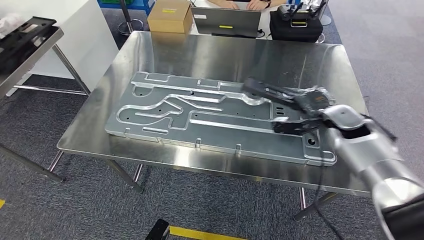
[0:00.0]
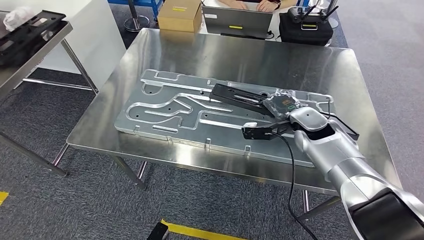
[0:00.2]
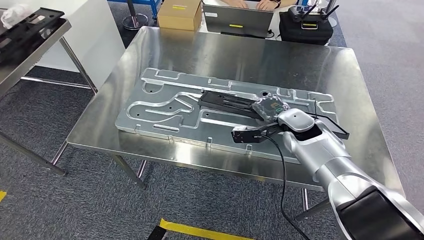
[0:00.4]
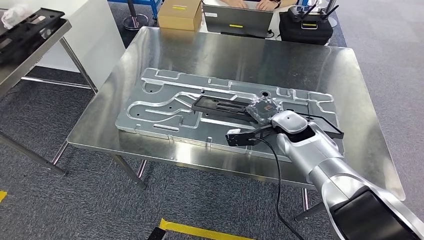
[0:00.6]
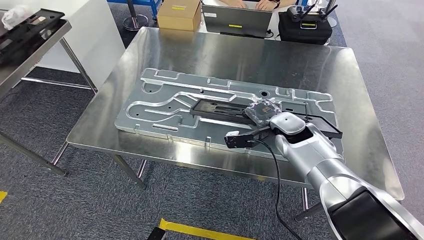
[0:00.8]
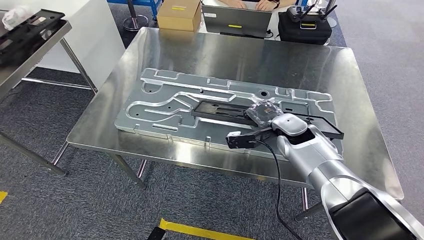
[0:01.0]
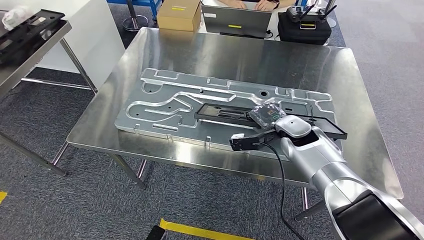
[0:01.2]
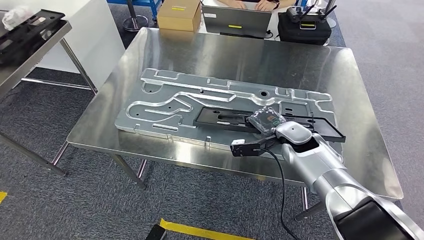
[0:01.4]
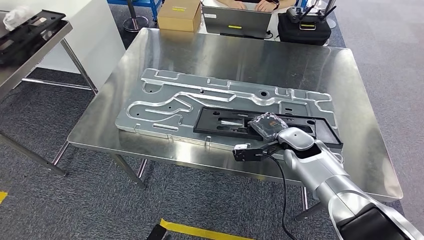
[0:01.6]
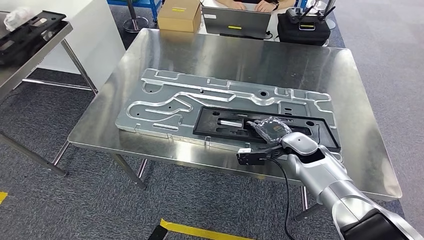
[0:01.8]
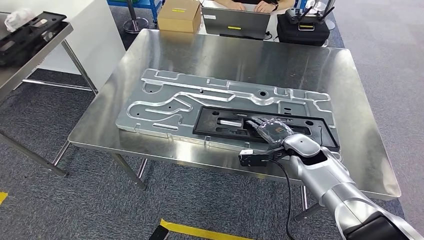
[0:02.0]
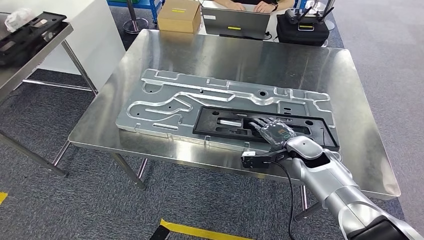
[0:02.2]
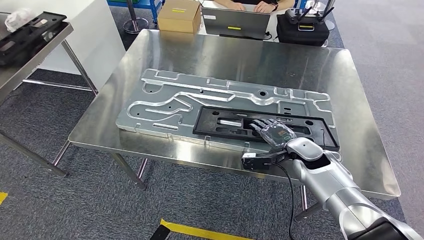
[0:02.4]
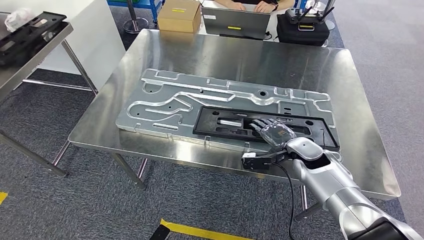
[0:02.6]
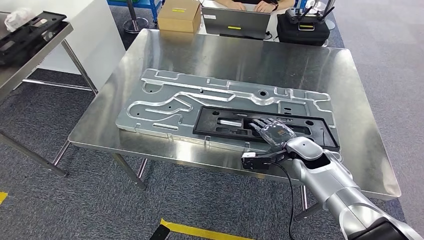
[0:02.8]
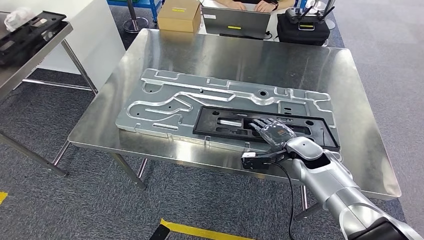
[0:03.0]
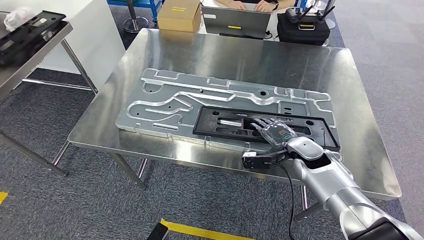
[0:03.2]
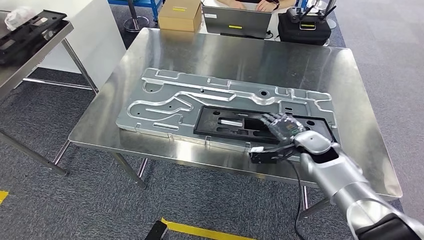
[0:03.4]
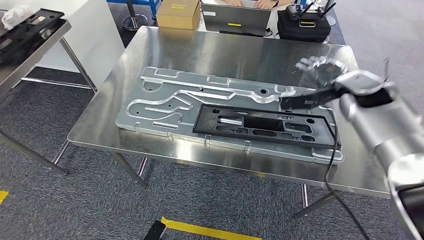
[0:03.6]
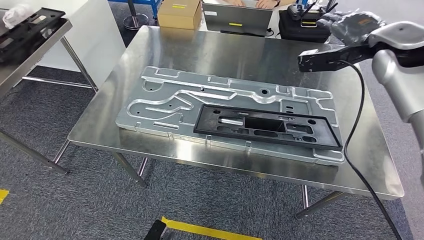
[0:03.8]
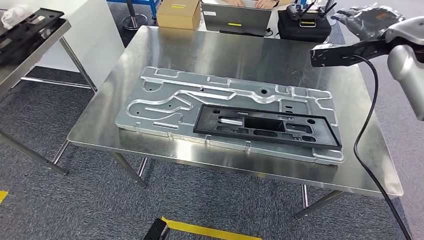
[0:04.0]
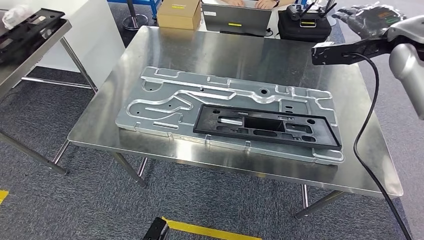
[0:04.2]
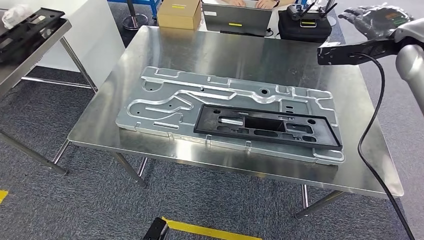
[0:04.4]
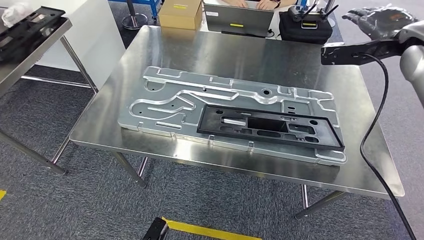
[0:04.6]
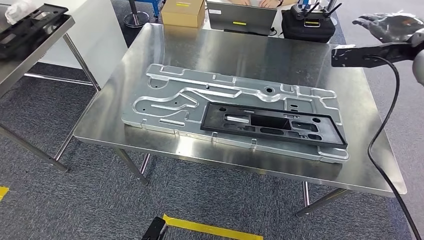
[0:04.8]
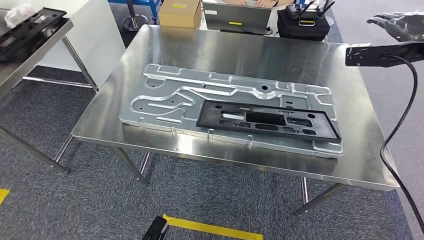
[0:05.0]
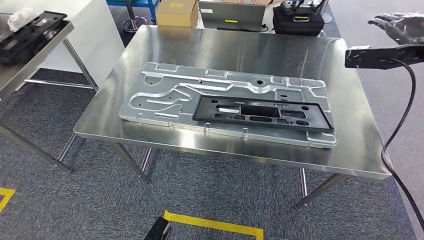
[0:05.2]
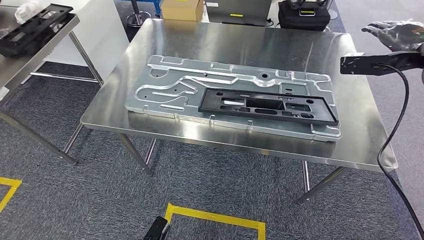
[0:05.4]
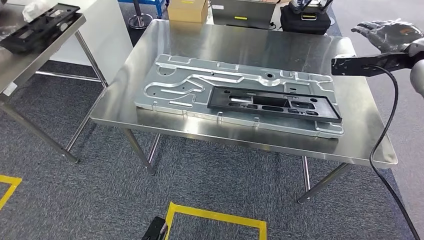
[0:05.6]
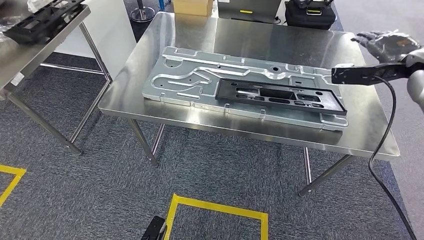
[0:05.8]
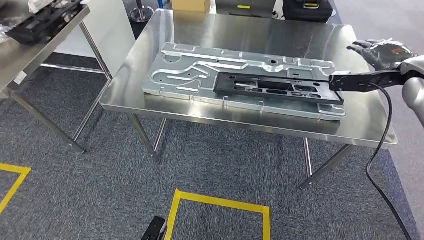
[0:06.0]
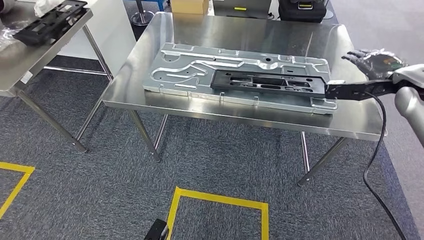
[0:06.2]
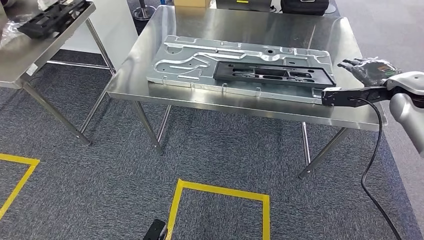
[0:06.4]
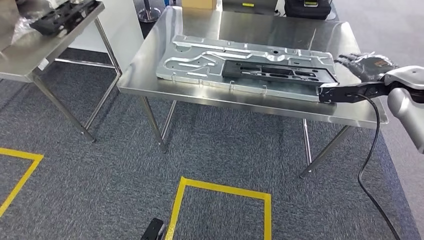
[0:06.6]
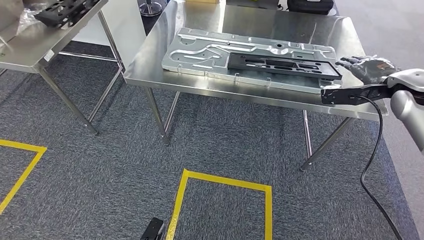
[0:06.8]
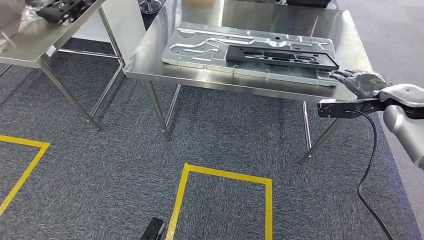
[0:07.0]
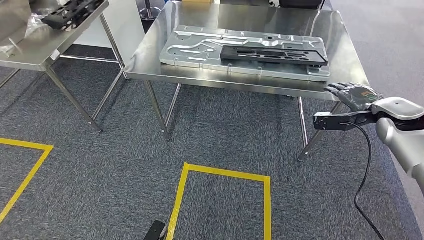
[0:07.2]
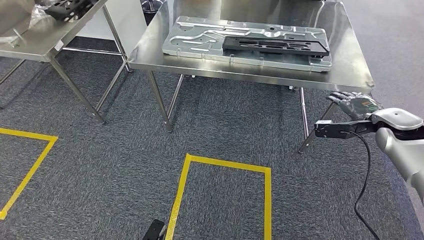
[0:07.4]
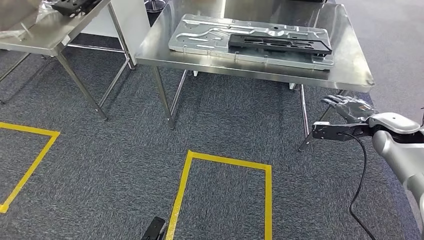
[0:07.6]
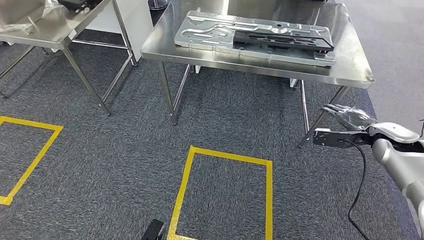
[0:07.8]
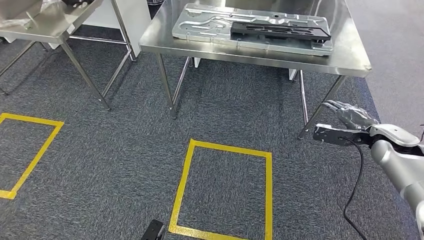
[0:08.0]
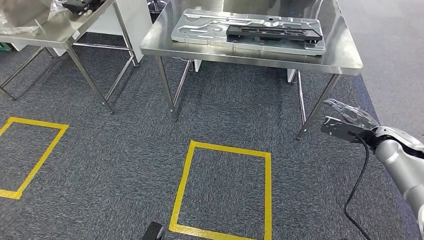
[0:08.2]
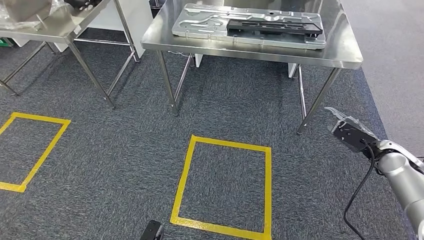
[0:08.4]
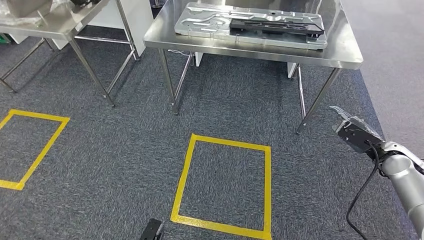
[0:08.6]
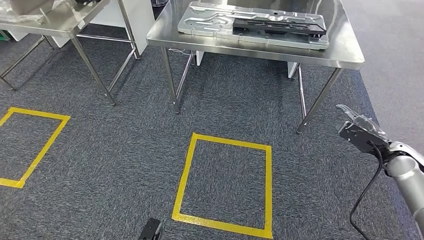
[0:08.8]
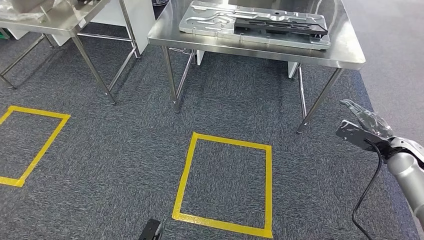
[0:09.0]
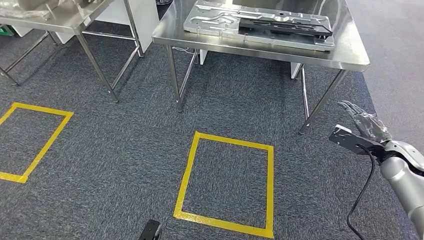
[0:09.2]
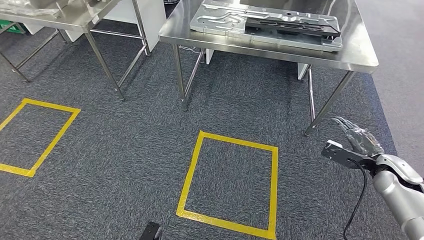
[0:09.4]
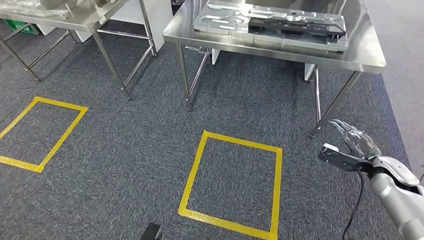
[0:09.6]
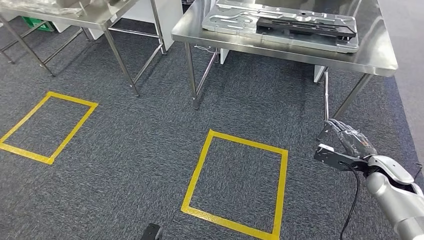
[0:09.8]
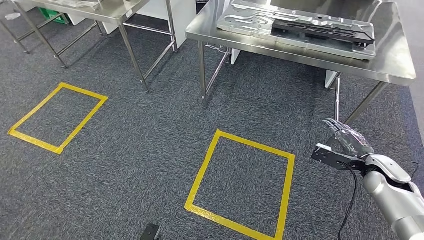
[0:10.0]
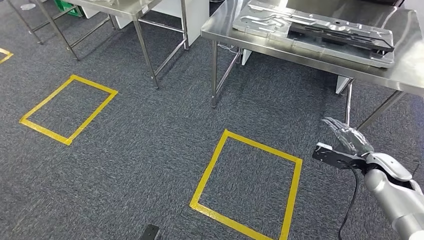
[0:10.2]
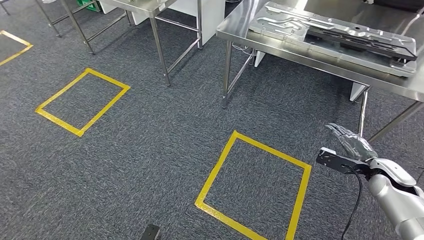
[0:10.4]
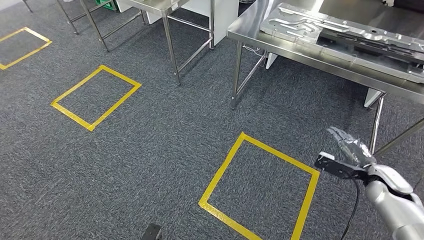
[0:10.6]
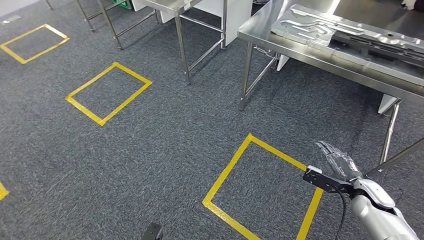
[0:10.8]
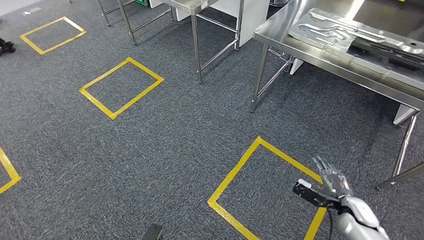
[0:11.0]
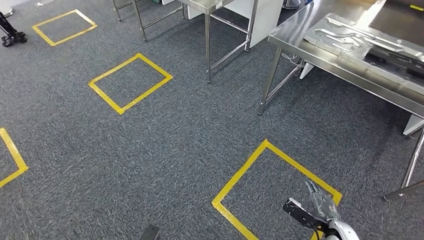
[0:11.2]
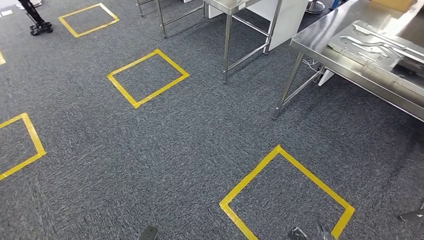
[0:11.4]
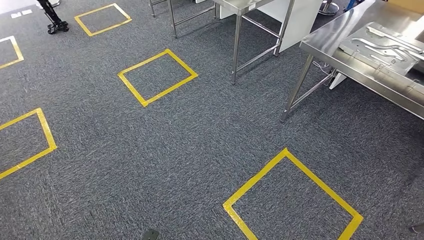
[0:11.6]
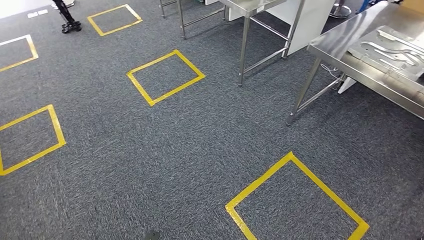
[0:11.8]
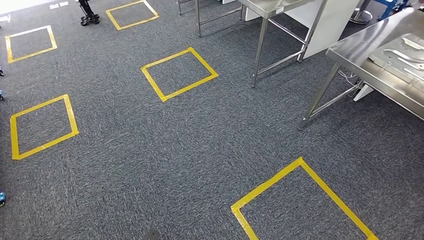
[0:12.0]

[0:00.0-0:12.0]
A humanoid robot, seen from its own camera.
Step, 0:00.0 to 0:04.2: Insert the large material into the corresponding slot on the workbench.
0:01.6 to 0:03.0: The hands make only small movements.

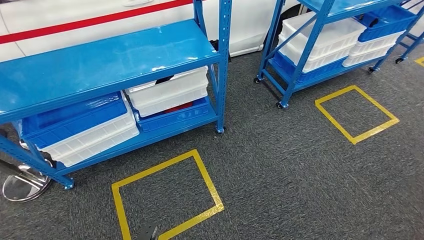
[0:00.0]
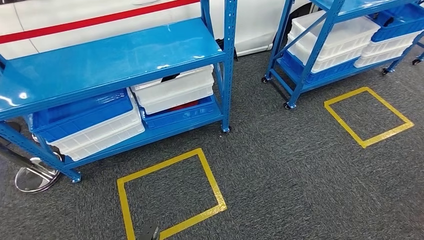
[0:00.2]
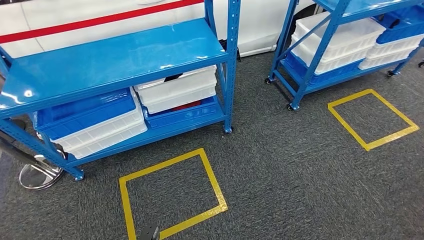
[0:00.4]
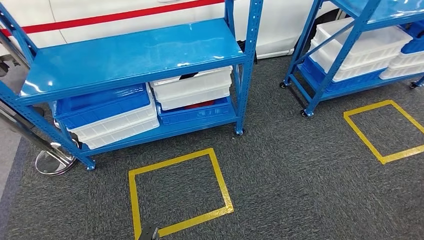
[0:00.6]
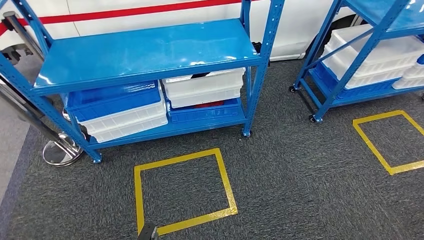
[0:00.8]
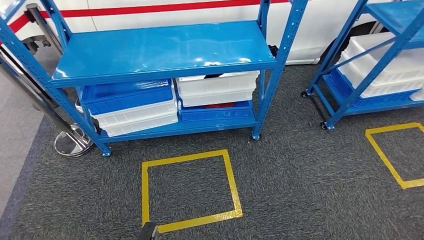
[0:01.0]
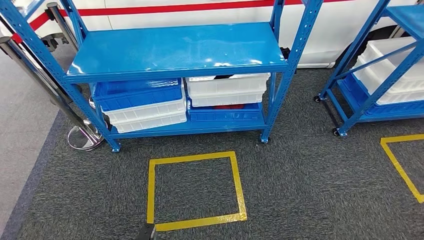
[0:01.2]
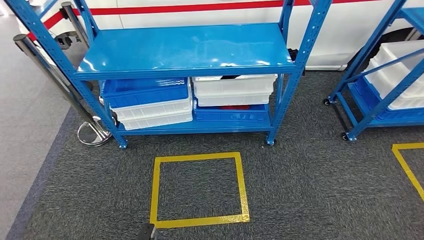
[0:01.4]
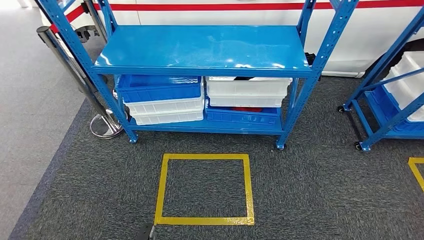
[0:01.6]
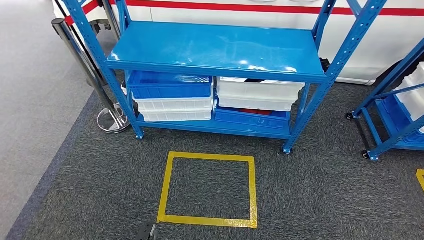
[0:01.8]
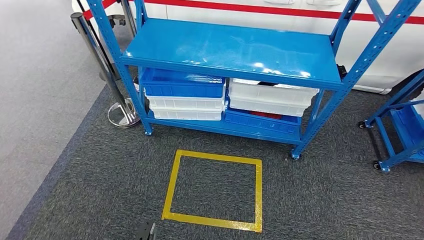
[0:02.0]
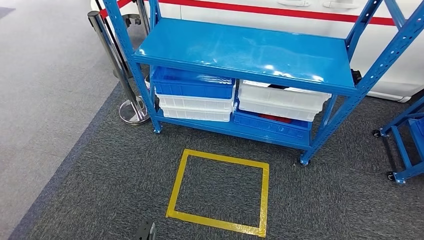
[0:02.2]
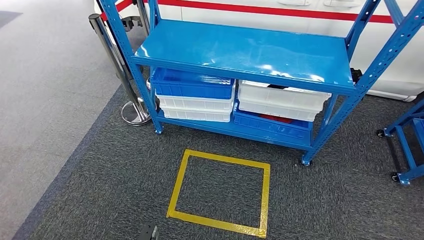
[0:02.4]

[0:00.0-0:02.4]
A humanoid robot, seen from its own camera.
Step, 0:00.0 to 0:02.4: Return to the initial position at the shelf.
